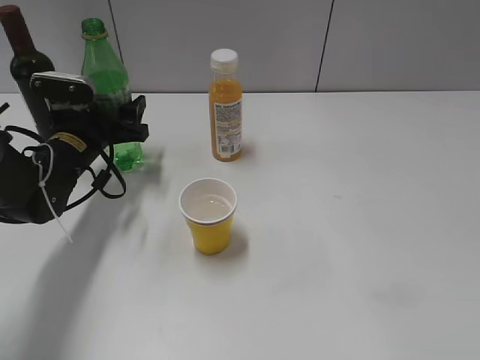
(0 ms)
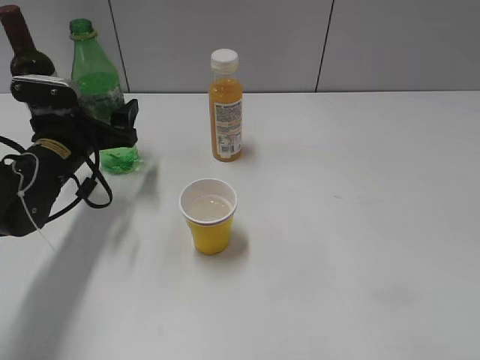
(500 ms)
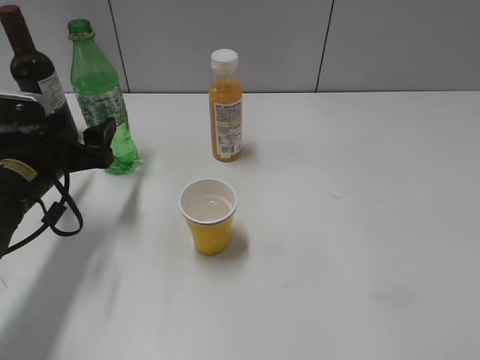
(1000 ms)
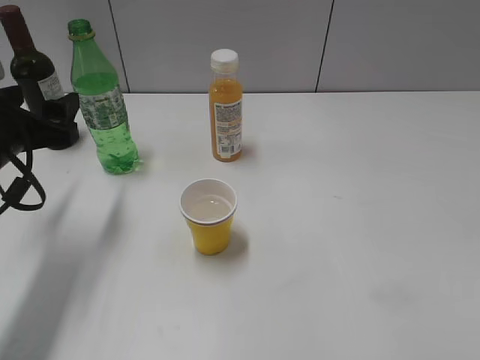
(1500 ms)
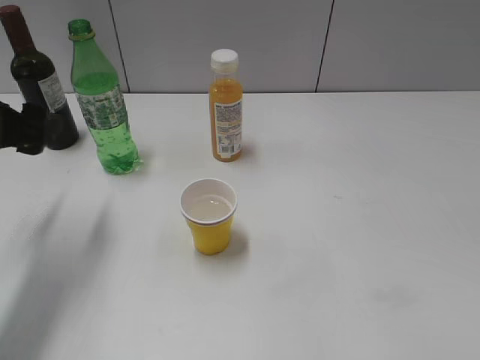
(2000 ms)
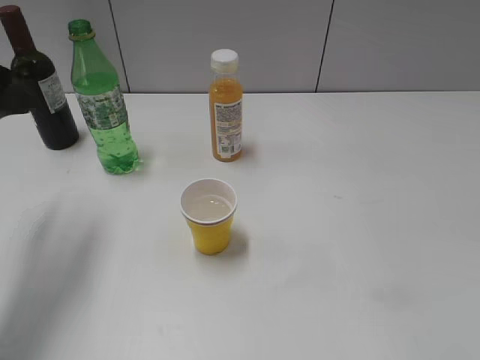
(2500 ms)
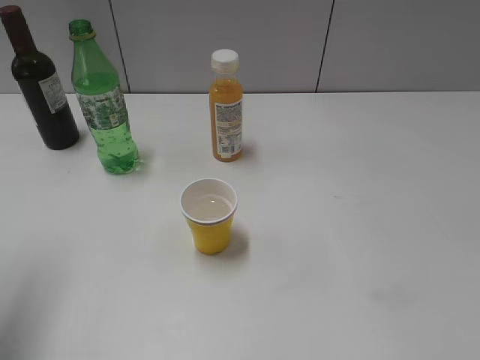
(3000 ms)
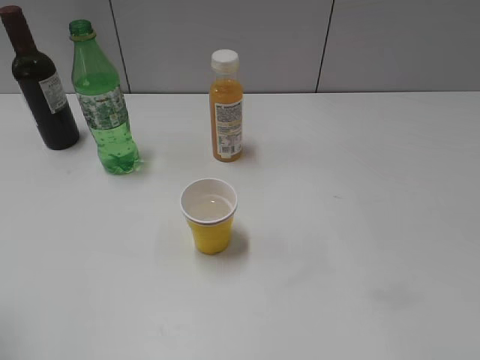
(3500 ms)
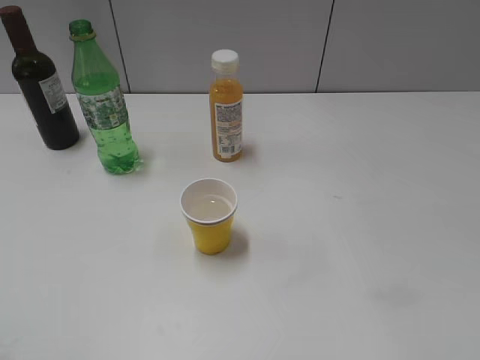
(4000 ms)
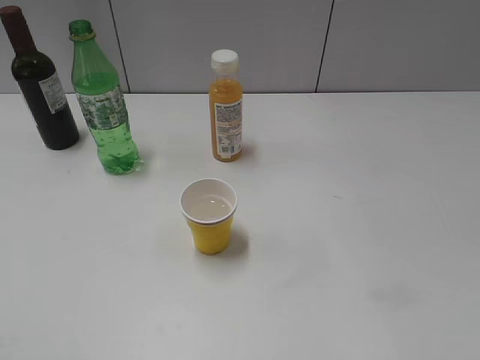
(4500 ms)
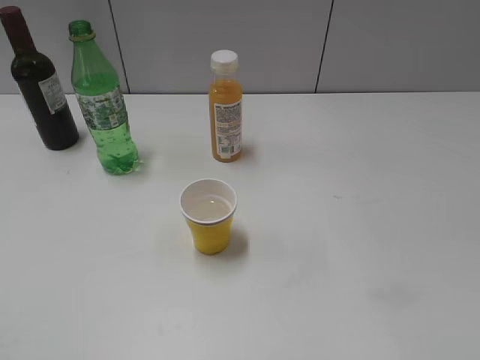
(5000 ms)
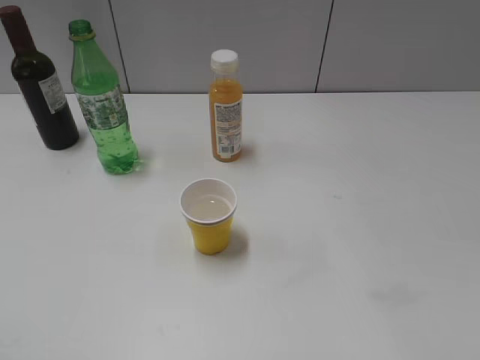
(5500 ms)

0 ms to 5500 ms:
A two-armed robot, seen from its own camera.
0 ms to 2000 ms: The left gripper shifts some 15 cm upward and backward.
2000 ms to 3500 ms: The left gripper shifts about 20 cm backward and upward.

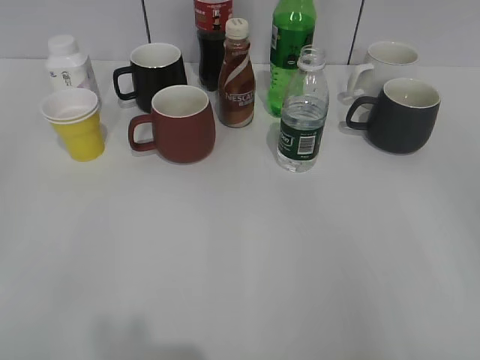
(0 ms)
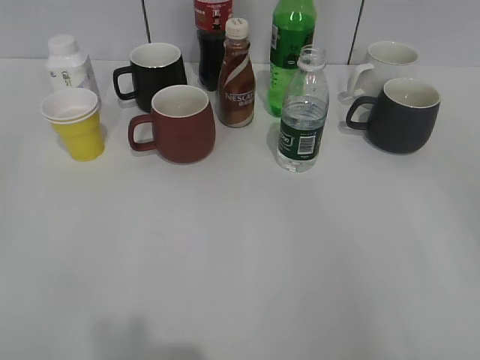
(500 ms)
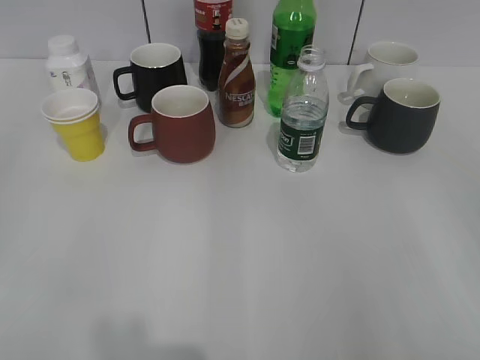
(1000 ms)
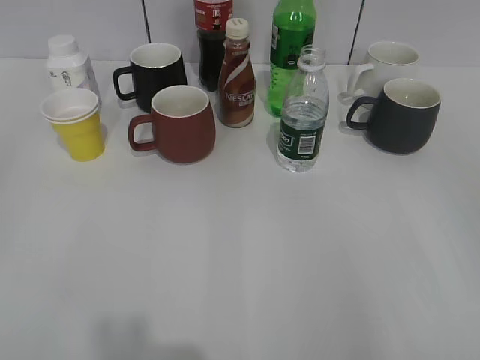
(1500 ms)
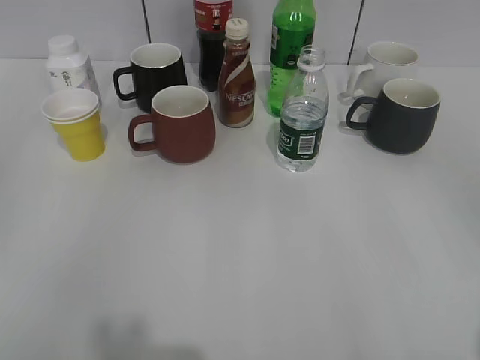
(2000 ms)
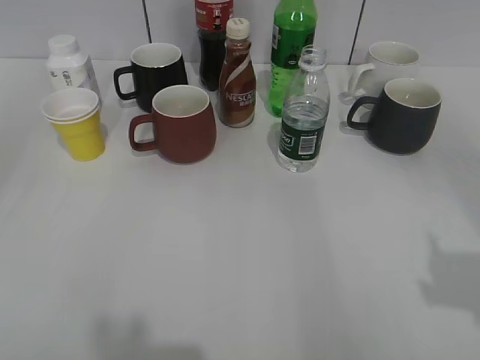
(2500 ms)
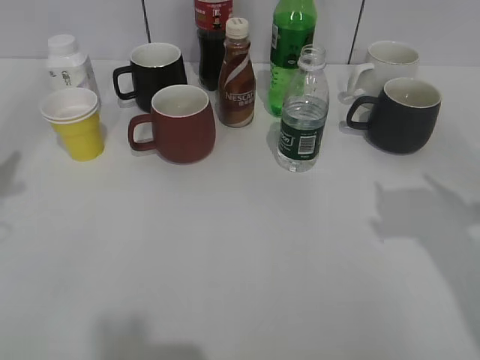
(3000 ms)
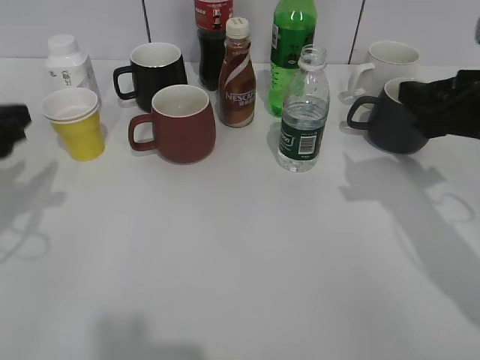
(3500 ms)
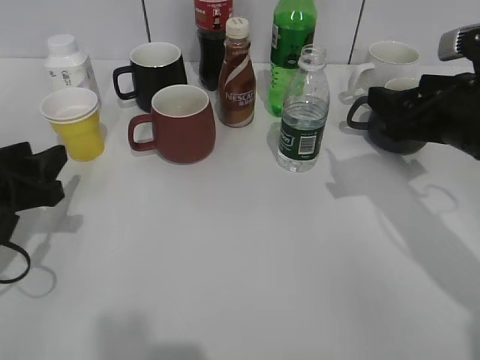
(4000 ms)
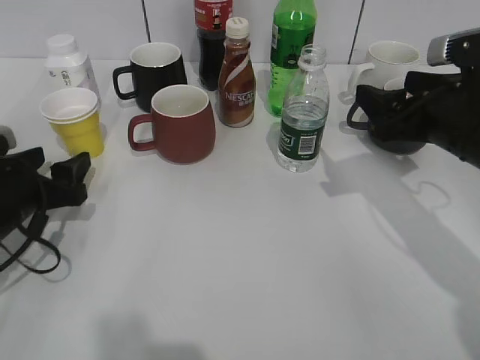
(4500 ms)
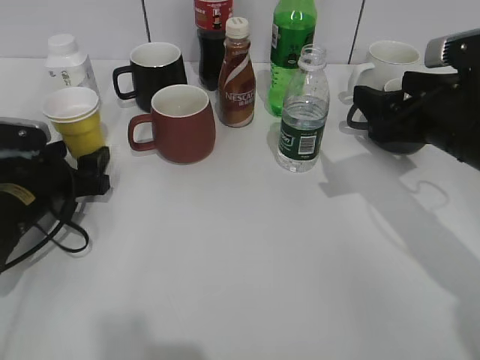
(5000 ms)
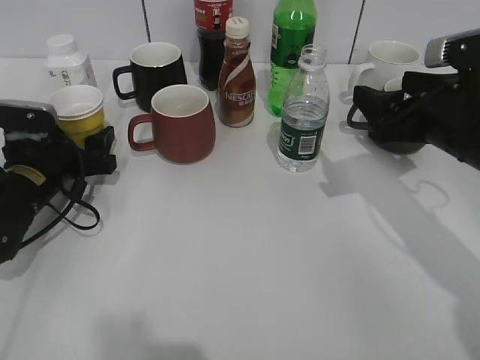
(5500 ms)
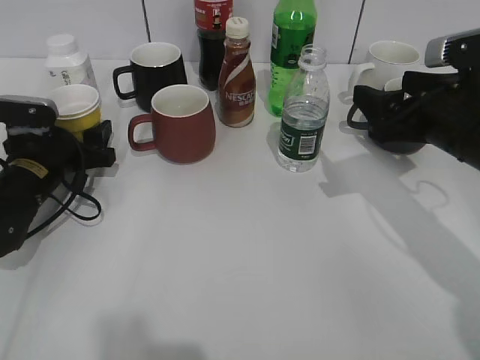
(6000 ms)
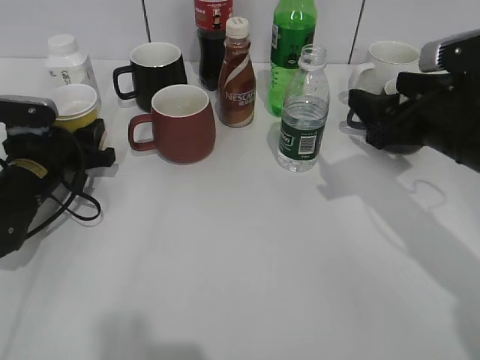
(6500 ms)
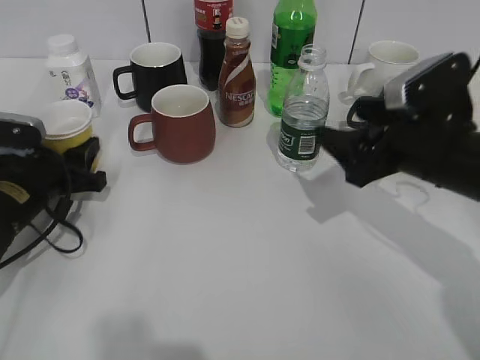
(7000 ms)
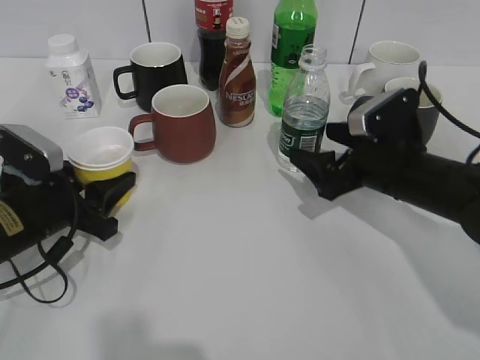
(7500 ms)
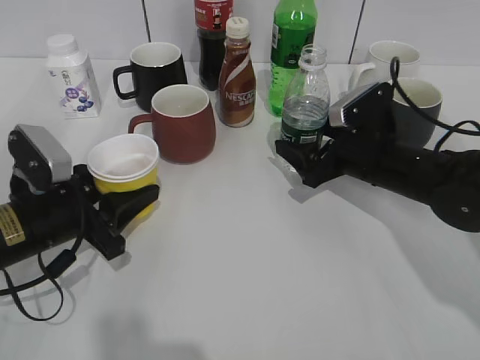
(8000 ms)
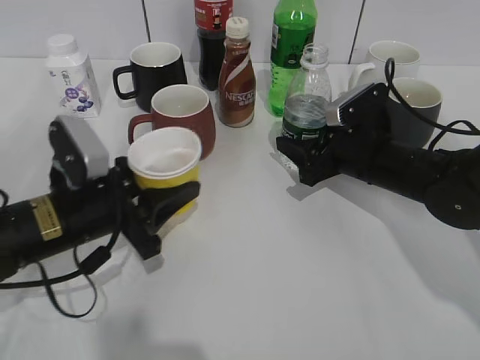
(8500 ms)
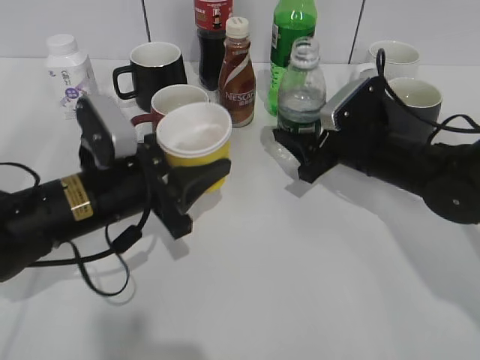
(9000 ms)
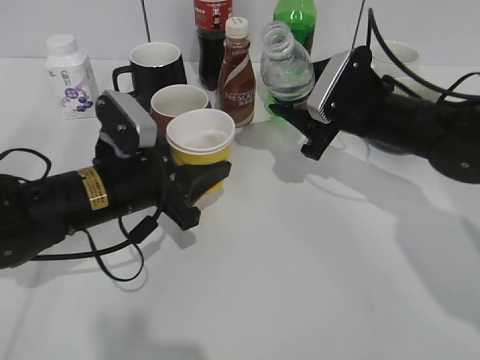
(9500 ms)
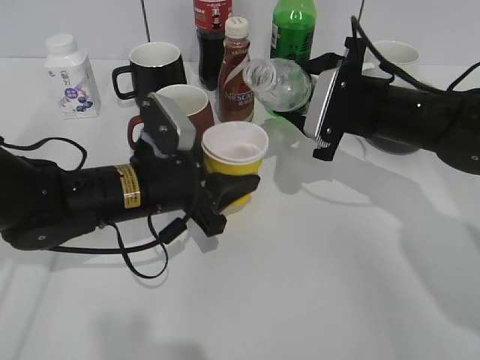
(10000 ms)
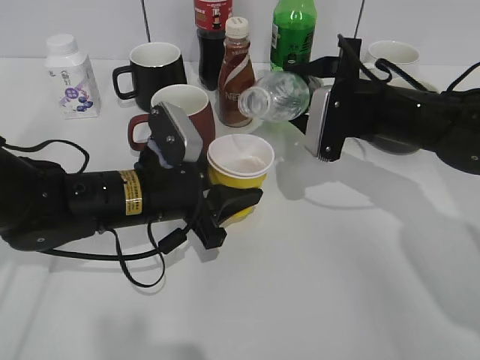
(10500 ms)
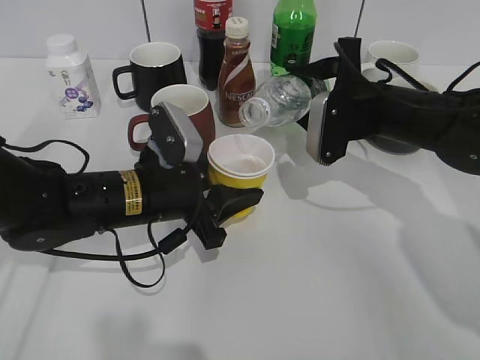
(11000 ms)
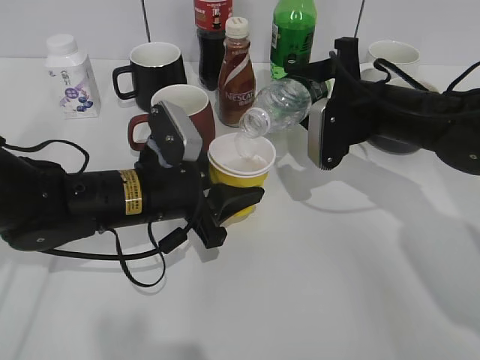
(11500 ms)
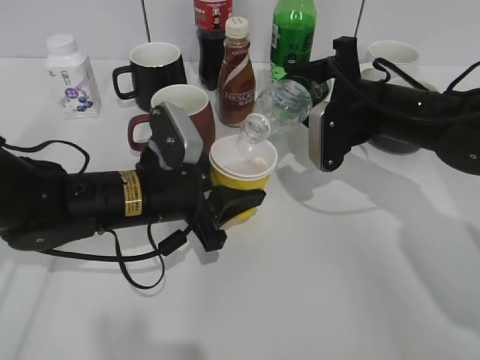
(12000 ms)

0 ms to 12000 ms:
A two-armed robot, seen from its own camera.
Step, 2000 ms to 6000 ms: Grasp the yellow paper cup with left gripper.
Step, 7000 ms to 8500 ms: Grasp the bottle with water with right gripper.
2000 ms to 4000 ms: The left gripper travels forward and downward by approximately 30 cm, while the right gripper moves forward, some 25 cm.
4000 ms to 6000 ms: The left gripper goes roughly 10 cm forward and downward, and opens up.
6000 ms to 8000 ms: The left gripper is displaced backward by roughly 10 cm, and closes. The right gripper is displaced downward and forward by about 10 cm.
8000 ms to 10000 ms: The right gripper moves upward, some 5 cm, and closes its fingers. The left gripper heads to the right, covering about 10 cm.

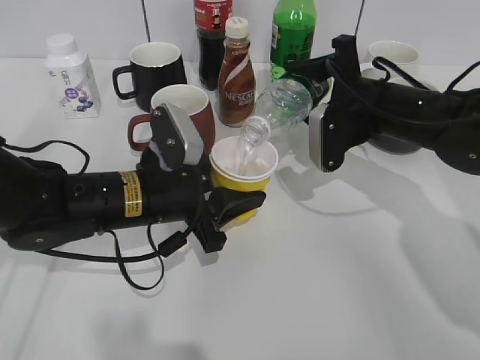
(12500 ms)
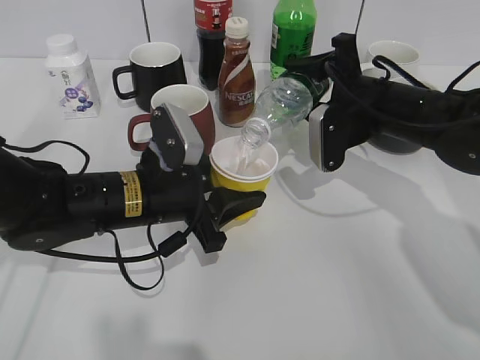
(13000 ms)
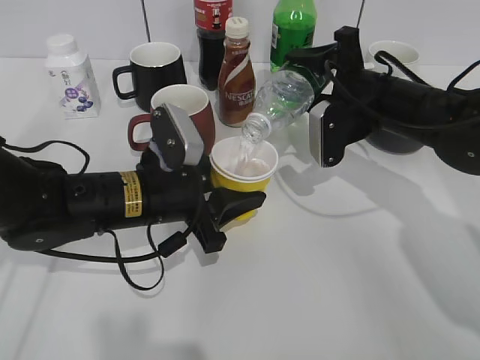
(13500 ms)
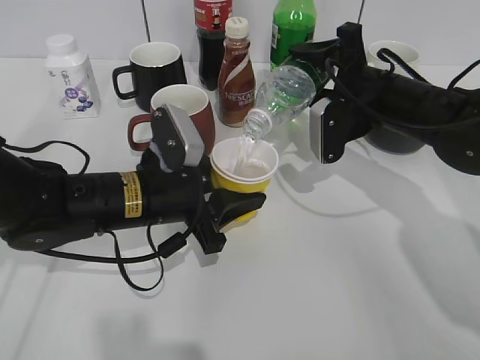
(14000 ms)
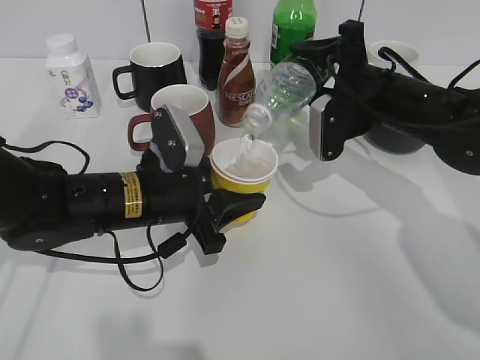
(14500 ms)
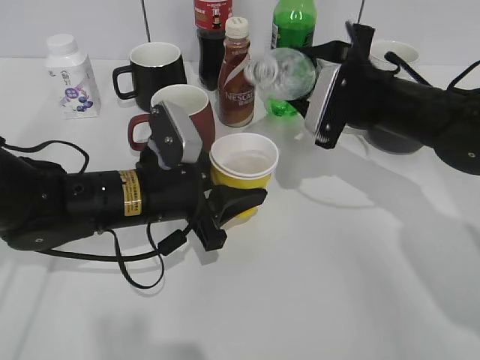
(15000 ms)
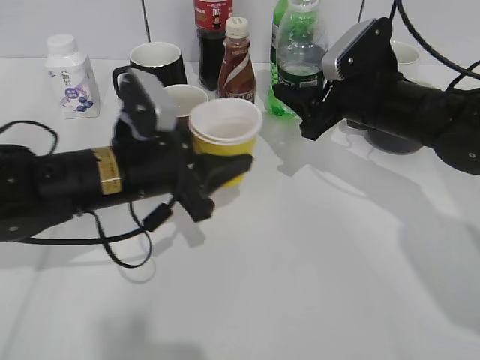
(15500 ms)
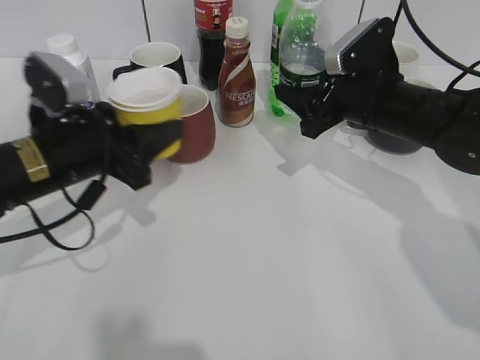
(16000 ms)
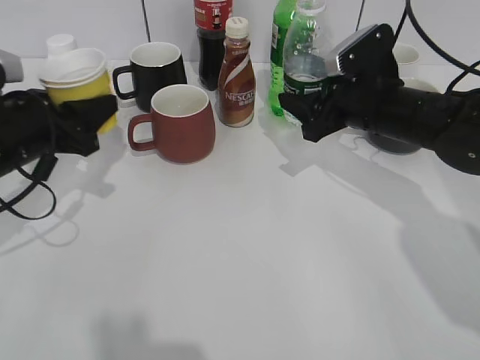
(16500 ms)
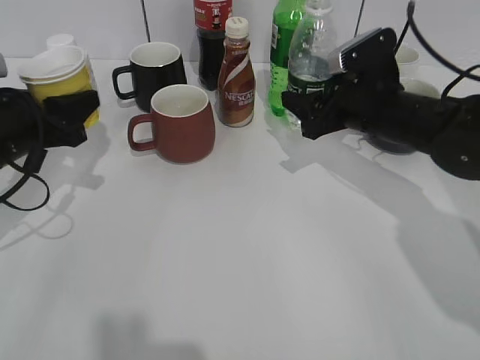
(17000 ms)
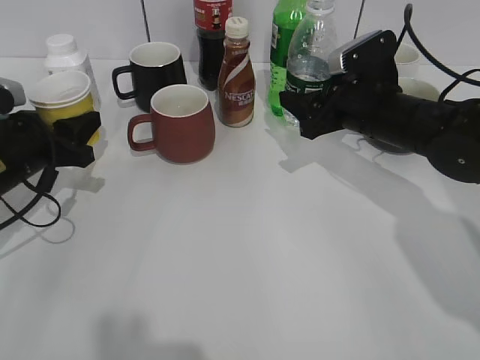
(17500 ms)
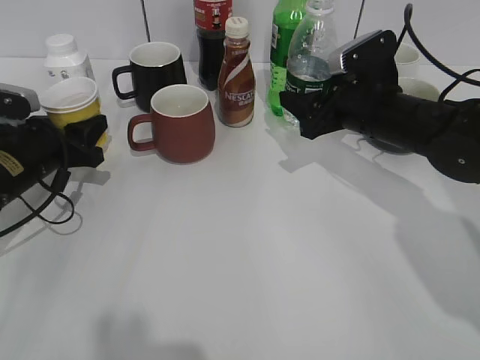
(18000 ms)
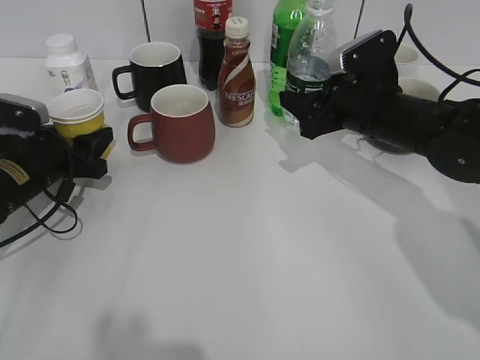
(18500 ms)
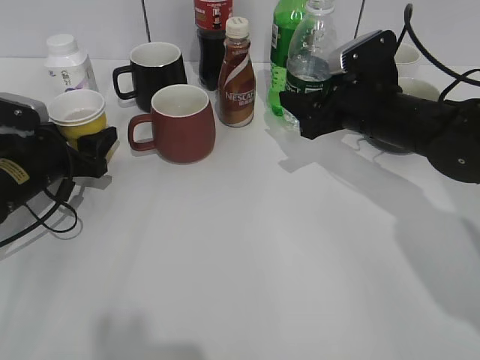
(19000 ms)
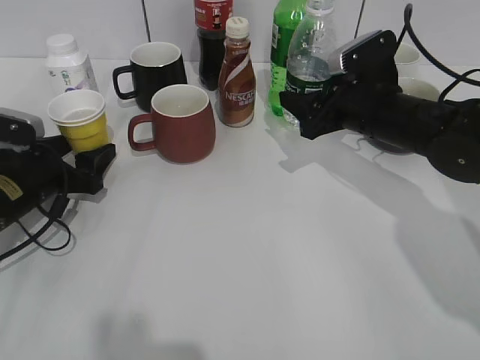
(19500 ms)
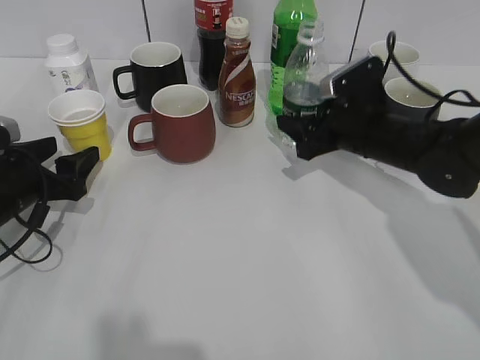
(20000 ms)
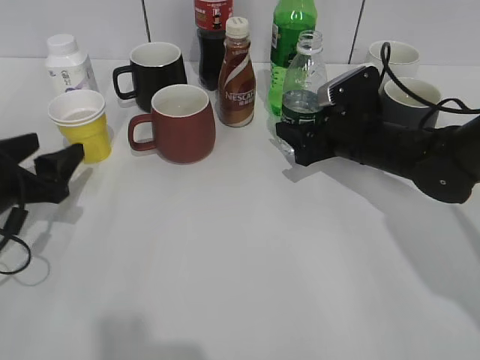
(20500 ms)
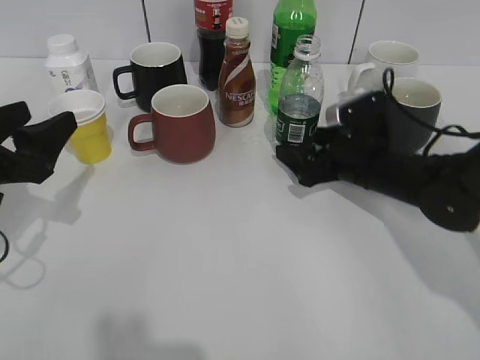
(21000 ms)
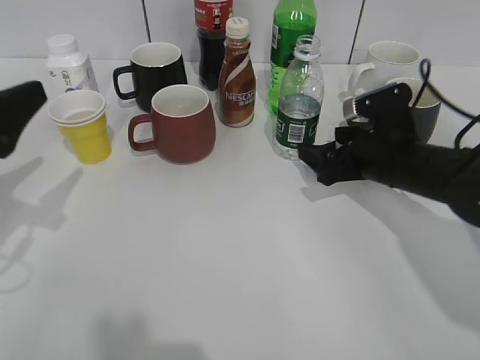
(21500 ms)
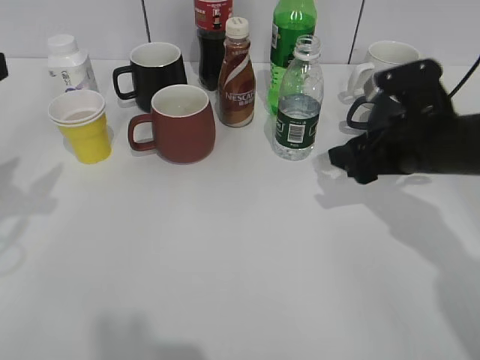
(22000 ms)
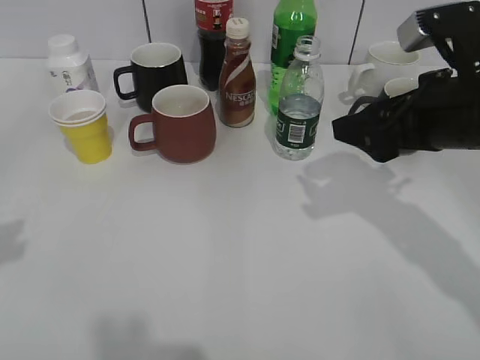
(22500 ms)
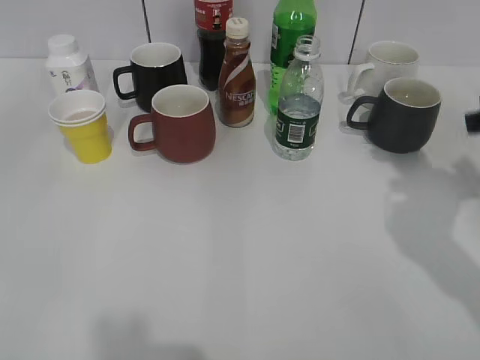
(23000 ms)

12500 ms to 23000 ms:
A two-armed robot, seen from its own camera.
Step, 12500 ms to 14500 ms: Pour the water from bottle to cup with right gripper.
Step, 15000 ms to 19500 ms: Place the yellow paper cup on the table with left gripper.
Step, 20000 ms to 21500 ms: Place the water bottle on the table with right gripper.
12500 ms to 14500 ms: The grippers make only small movements.
14500 ms to 16500 ms: The left gripper travels to the left by approximately 15 cm.
16500 ms to 19000 ms: The left gripper is displaced downward by some 5 cm, and opens its fingers.
19000 ms to 21000 ms: The left gripper moves backward and upward, about 10 cm, while the right gripper is displaced downward by some 5 cm, and opens up.
21000 ms to 23000 ms: The right gripper moves upward, to the right and backward, roughly 20 cm. Meanwhile the left gripper goes about 25 cm upward and backward, and closes its fingers.
